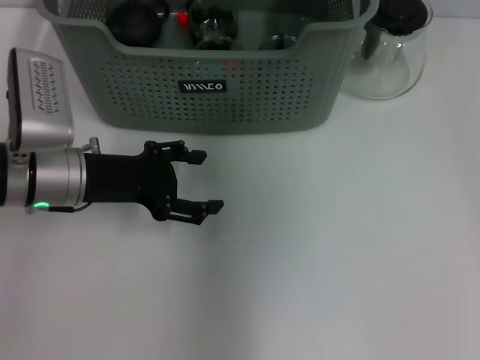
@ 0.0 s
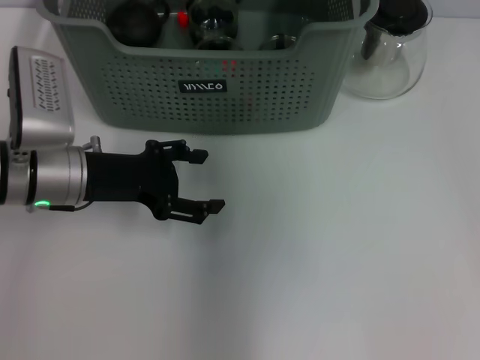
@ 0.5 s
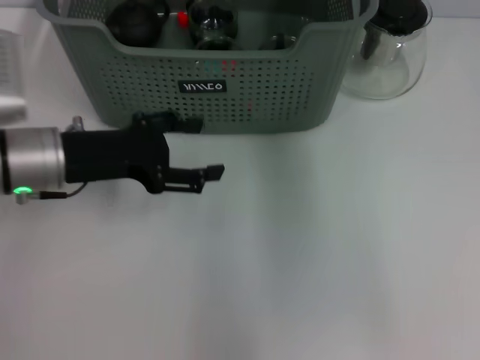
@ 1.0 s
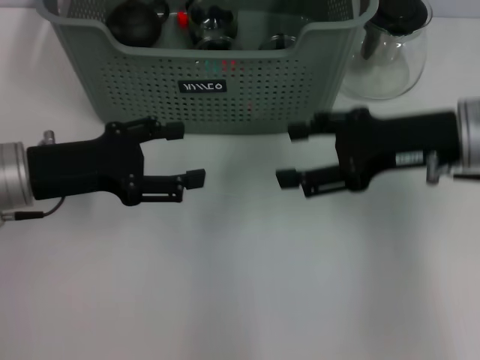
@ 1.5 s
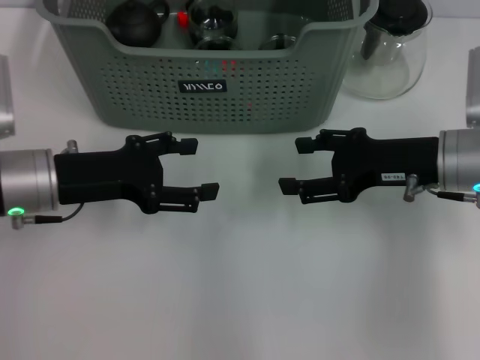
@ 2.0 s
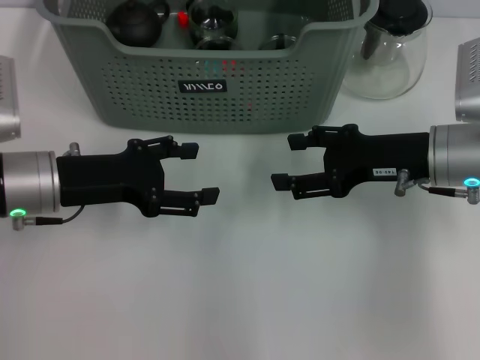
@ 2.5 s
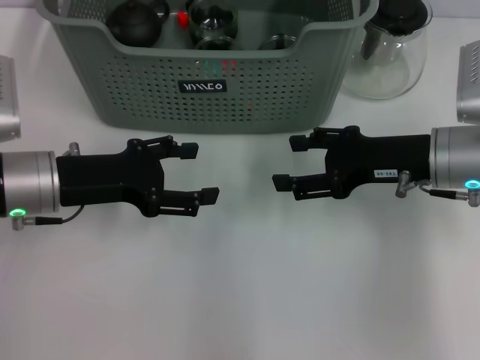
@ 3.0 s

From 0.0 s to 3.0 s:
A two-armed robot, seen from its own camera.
Task of the whole recording: pick up the teacup on the table and place it into the storage bin, pick up the block on the table and place it into the storage bin.
From 0.0 s to 1.5 s: The right gripper is displaced downward, to the right and backward by some 25 cm, and opens its fingers.
From 1.5 s to 3.0 s: The right gripper heads downward, covering roughly 5 cm.
